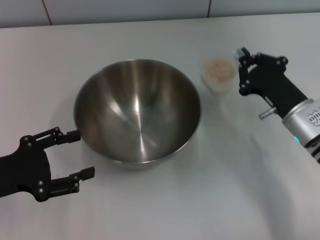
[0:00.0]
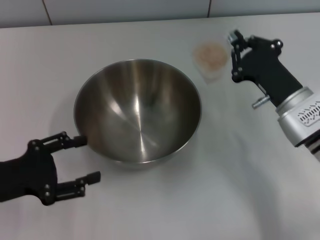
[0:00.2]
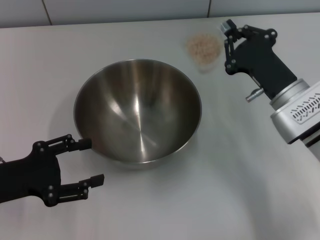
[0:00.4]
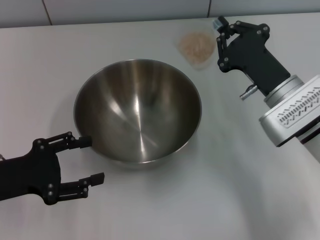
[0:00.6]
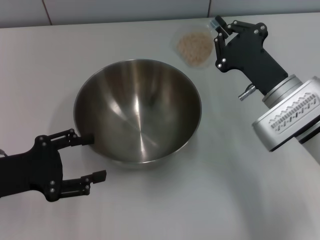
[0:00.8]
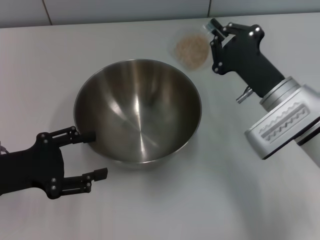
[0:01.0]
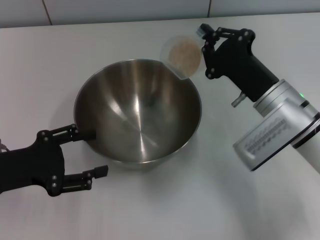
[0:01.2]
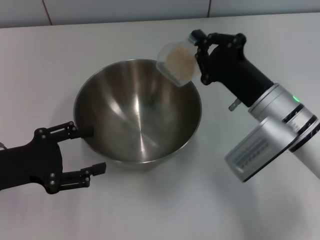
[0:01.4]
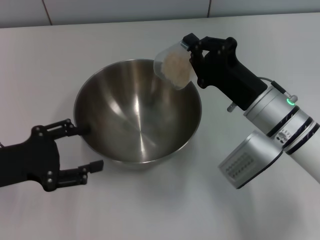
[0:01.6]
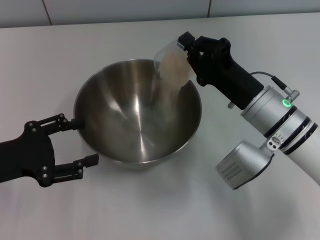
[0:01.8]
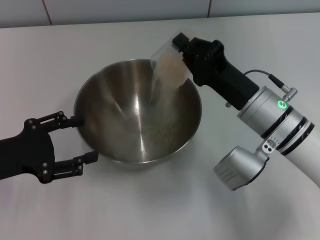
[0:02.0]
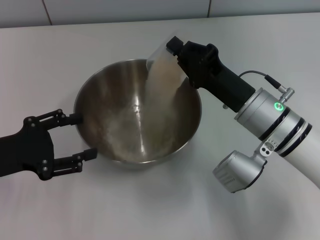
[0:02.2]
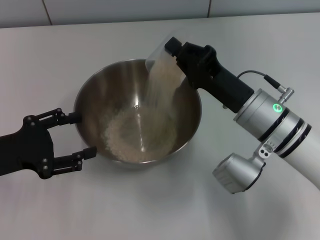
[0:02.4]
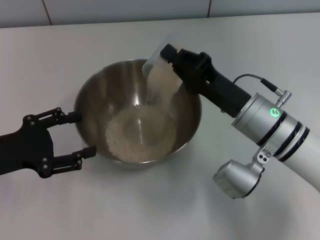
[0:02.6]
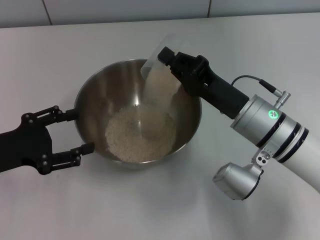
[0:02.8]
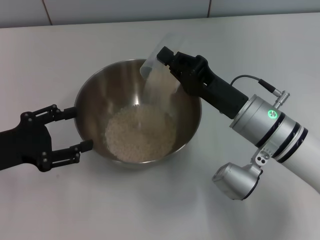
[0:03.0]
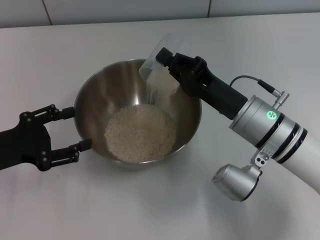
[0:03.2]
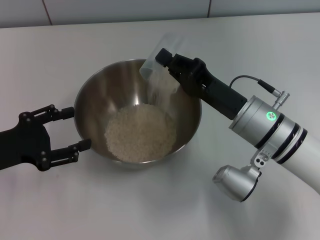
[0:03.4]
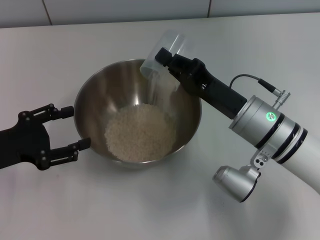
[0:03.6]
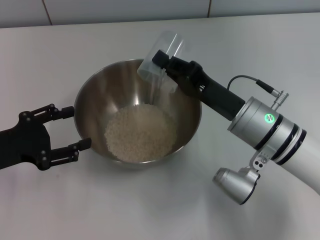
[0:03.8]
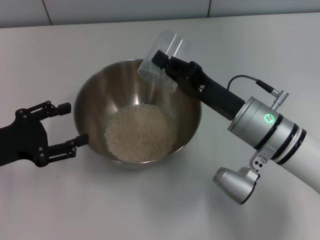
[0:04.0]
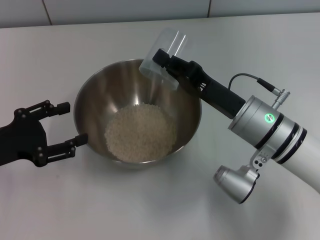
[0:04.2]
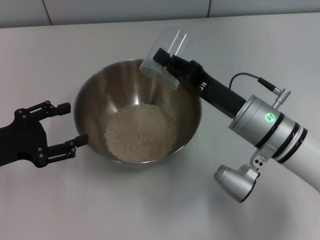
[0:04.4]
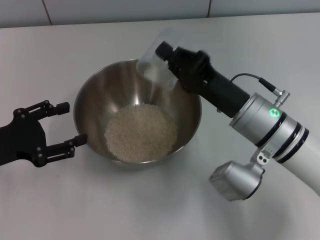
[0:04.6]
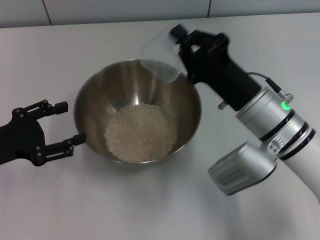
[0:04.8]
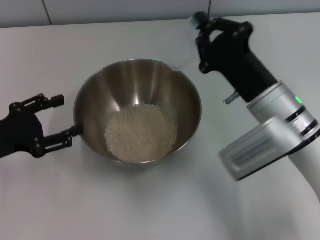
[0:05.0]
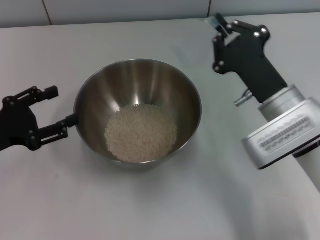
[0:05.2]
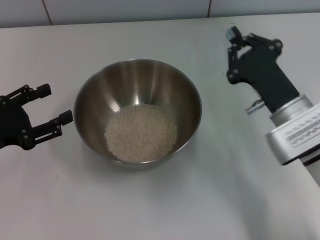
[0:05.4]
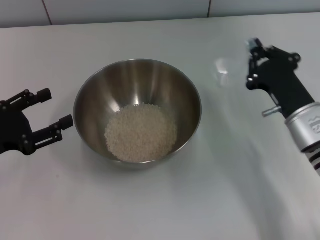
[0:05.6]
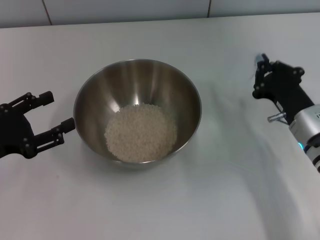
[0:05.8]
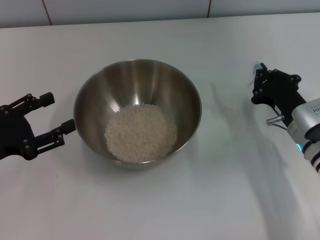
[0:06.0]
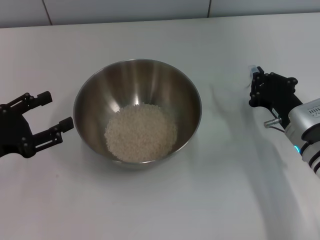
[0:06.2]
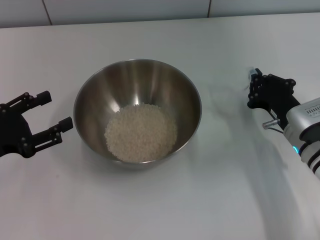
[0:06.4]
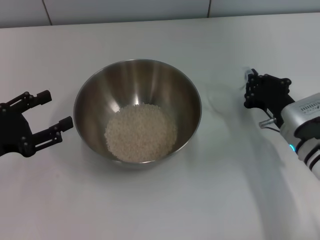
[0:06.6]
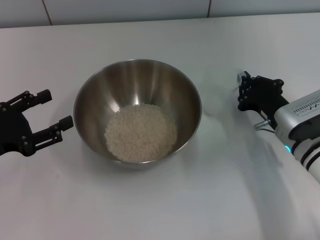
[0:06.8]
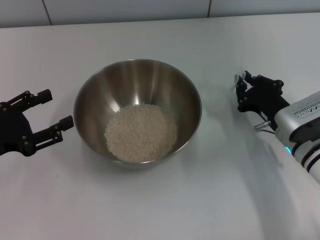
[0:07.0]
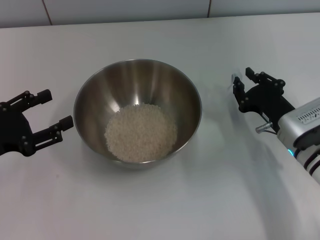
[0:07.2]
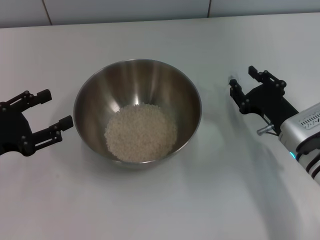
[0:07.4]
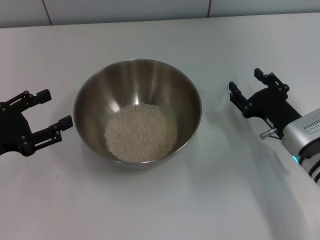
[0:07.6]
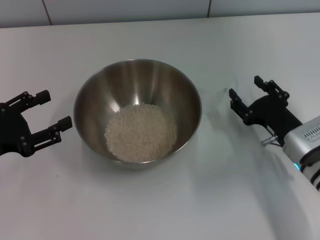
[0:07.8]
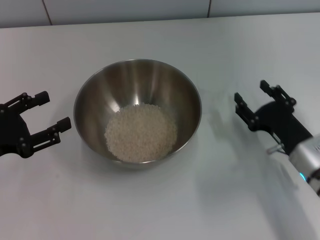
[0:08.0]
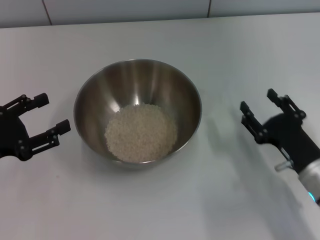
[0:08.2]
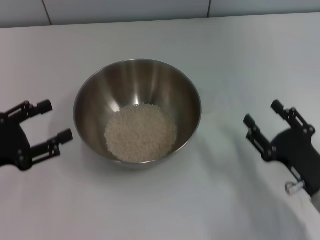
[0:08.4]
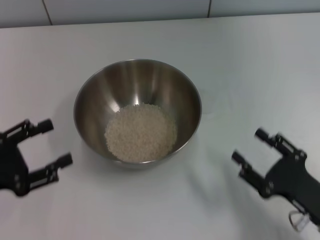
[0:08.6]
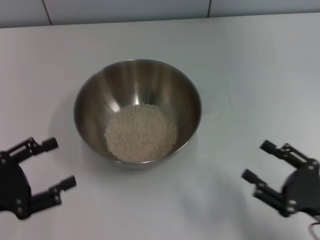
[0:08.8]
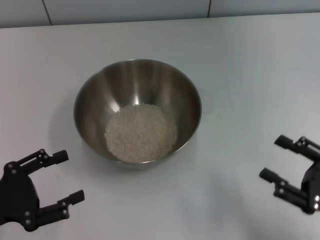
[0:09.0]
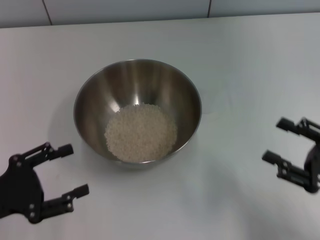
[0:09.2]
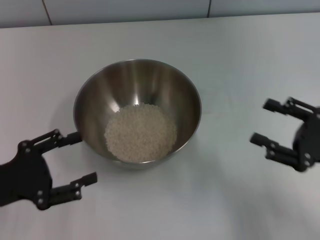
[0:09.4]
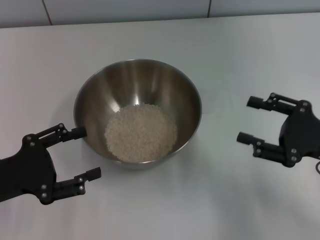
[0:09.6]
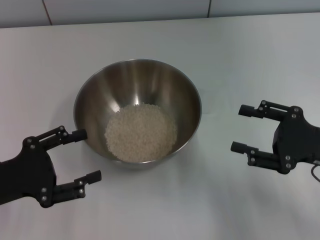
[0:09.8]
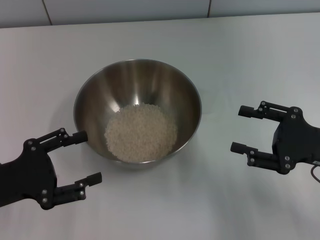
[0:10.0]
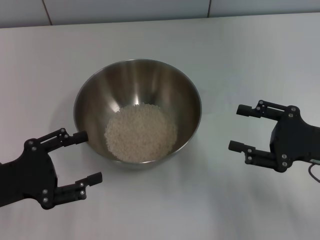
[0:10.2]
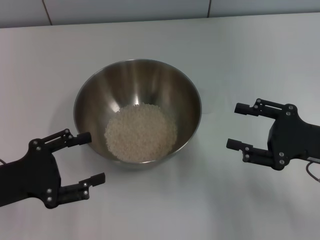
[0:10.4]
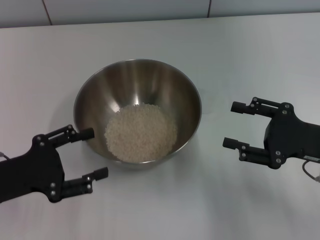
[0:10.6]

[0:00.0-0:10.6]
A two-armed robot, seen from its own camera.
Task of the whole recording: Place the bowl in the middle of the table with one hand and pour the rice from the grain cup into it with the other hand.
Step, 0:00.6 to 0:04.8: Pour the rice from the cup into the bowl with the right gripper.
Step, 0:05.2 to 0:07.8: Place the cup on the table with the right gripper.
0:00.0 to 0:01.6: The right gripper travels to the left by about 5 cm.
0:03.0 to 0:04.6: There are only small adjustments of the grippers.
0:04.6 to 0:06.0: The right gripper moves to the right and downward, some 10 cm.
0:06.0 to 0:07.6: The right gripper opens up.
0:07.6 to 0:09.0: The left gripper heads backward, covering approximately 5 cm. The right gripper moves backward and to the right, some 15 cm.
0:09.0 to 0:10.6: The left gripper shifts by roughly 5 cm. Meanwhile the right gripper shifts some 10 cm forward.
